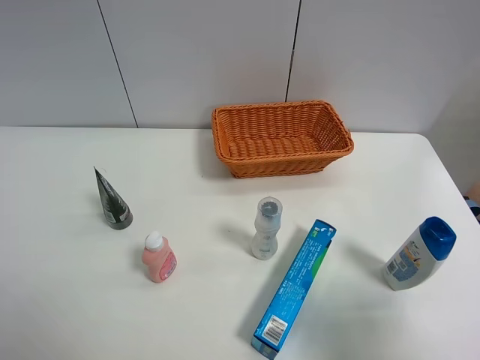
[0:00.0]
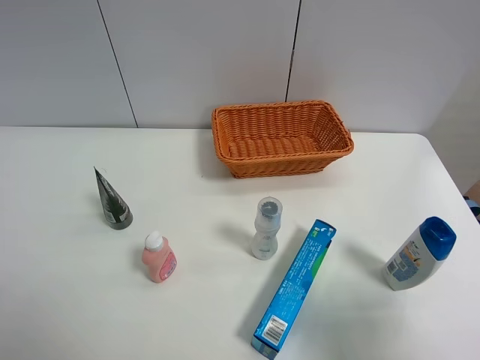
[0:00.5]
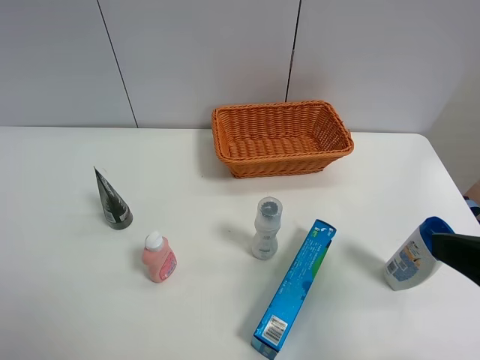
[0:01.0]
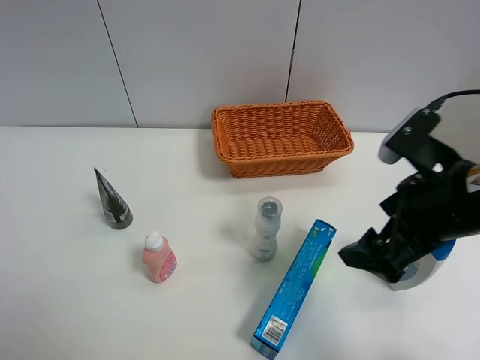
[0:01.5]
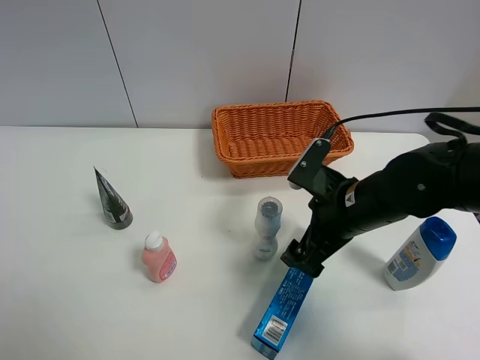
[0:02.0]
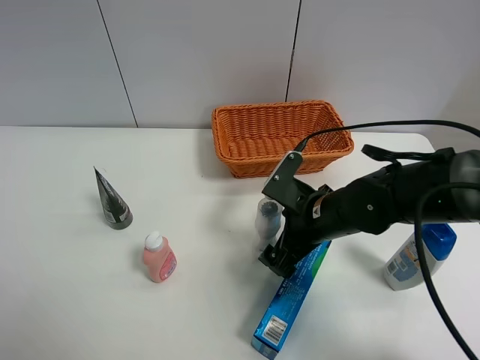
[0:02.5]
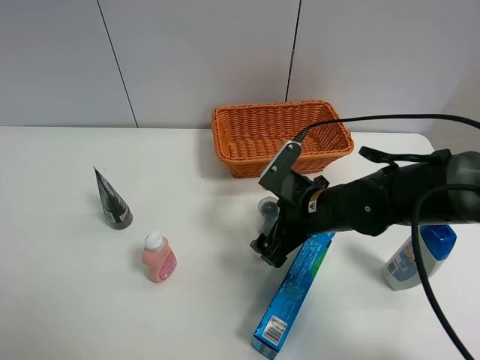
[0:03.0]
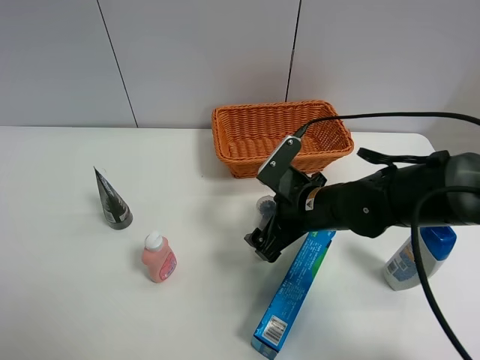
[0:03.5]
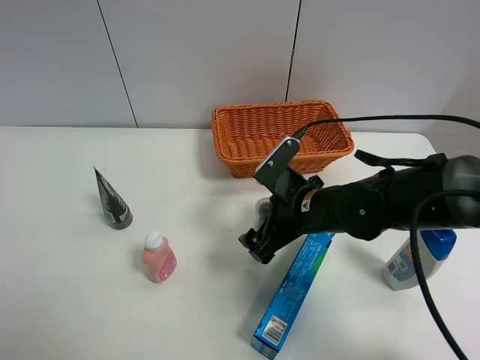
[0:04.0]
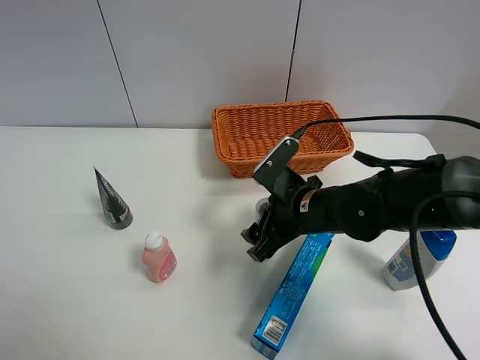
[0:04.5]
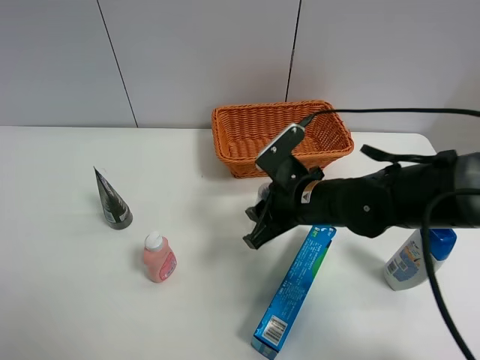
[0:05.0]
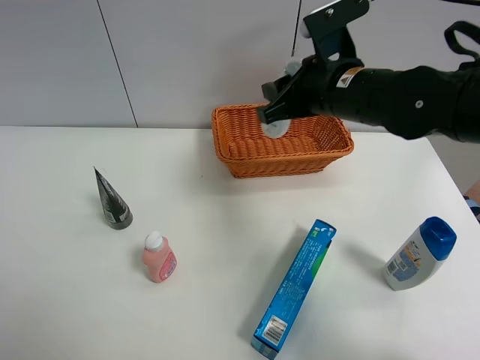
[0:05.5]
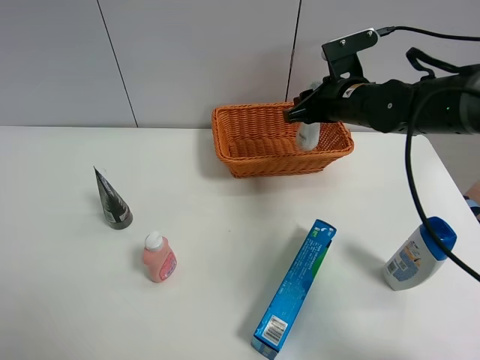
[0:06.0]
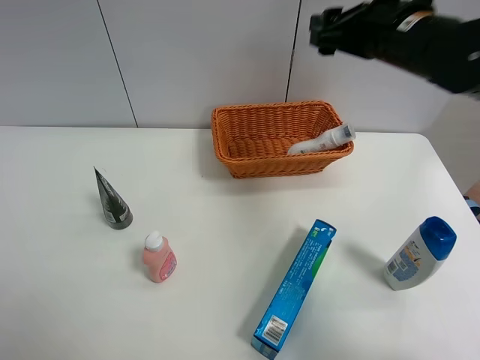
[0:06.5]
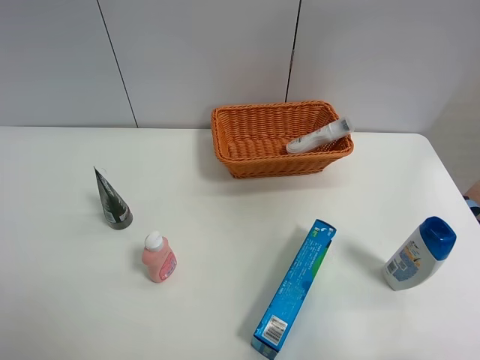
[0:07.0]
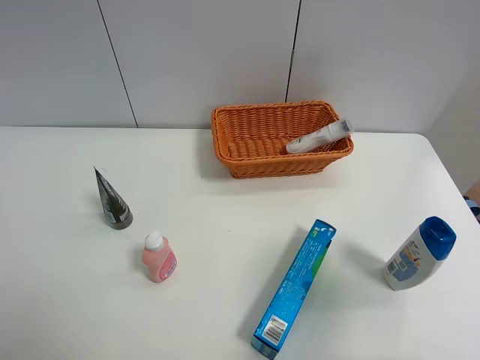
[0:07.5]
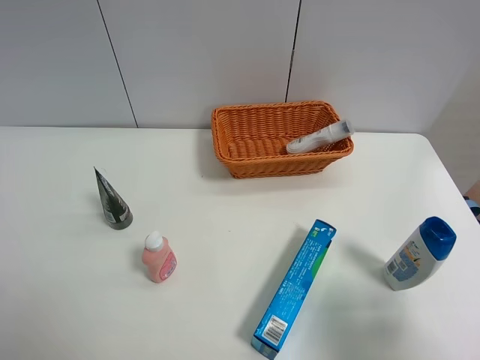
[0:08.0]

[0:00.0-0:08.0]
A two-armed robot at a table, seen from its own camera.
Task of the whole recording: Place the object closest to the toothpaste in the basket.
Step, 0:00.0 to 0:04.5: Grasp the cleaning agent with right gripper.
Step, 0:05.0 to 0:06.0: Place the cleaning agent in the basket with right gripper.
0:00.0 to 0:02.0: The right gripper goes approximately 30 cm forward, to the left and downward.
0:02.0 to 0:04.0: The right gripper ends up roughly 5 cm from where it was.
0:04.0 to 0:06.0: The right gripper shifts approximately 15 cm forward, upward and to the right, and closes.
0:06.0 to 0:08.0: The right gripper goes roughly 35 cm backward, and opens.

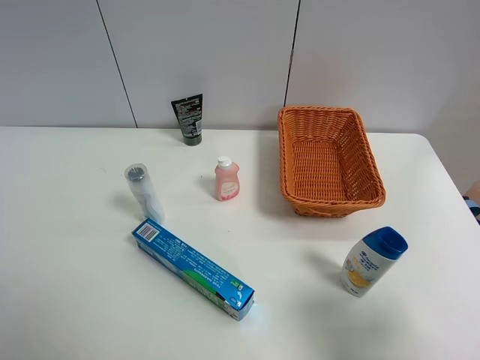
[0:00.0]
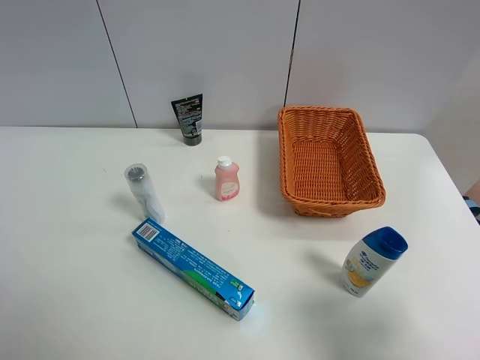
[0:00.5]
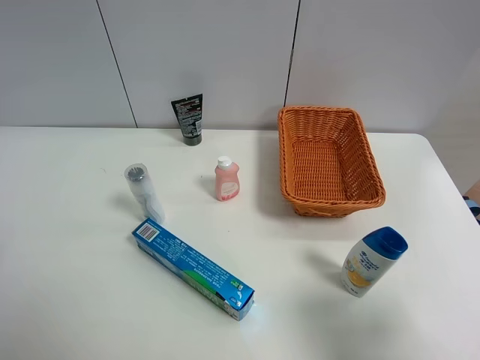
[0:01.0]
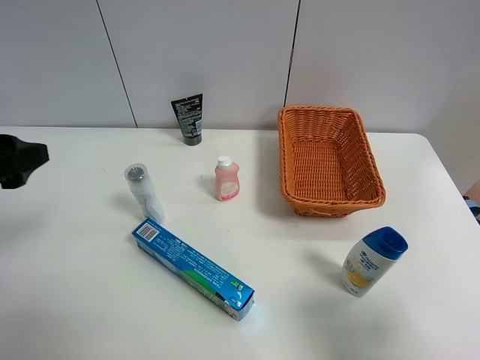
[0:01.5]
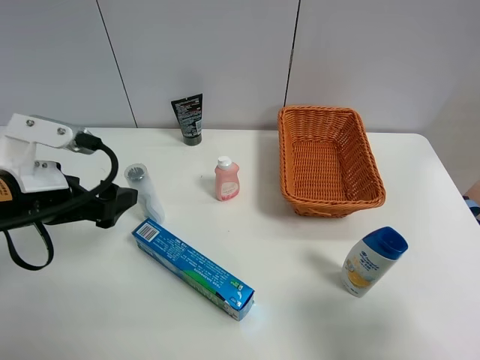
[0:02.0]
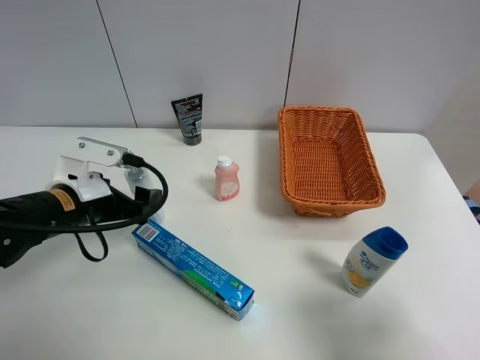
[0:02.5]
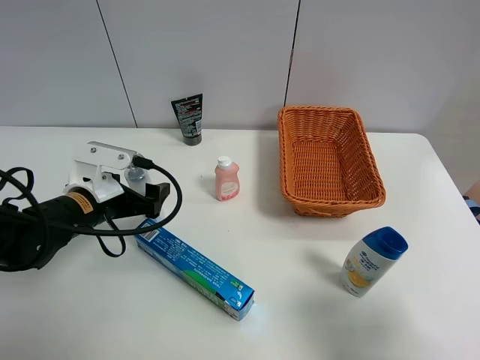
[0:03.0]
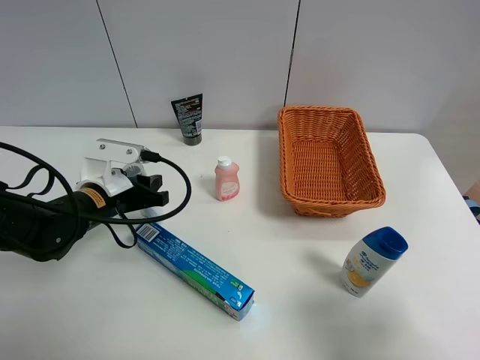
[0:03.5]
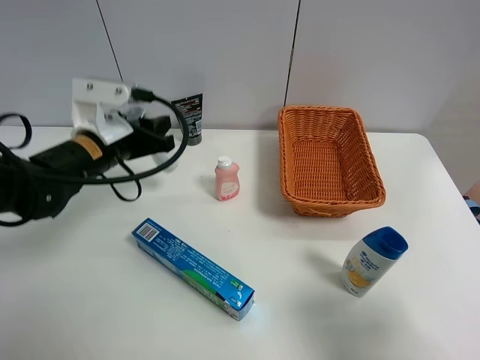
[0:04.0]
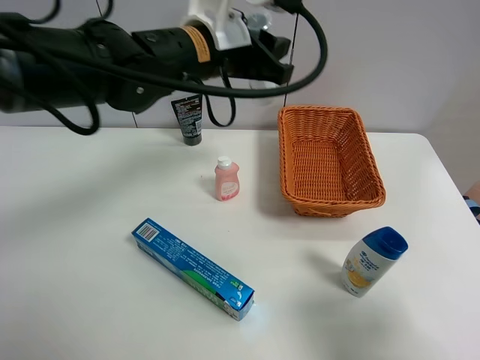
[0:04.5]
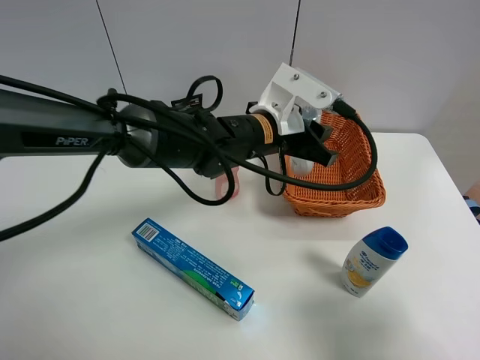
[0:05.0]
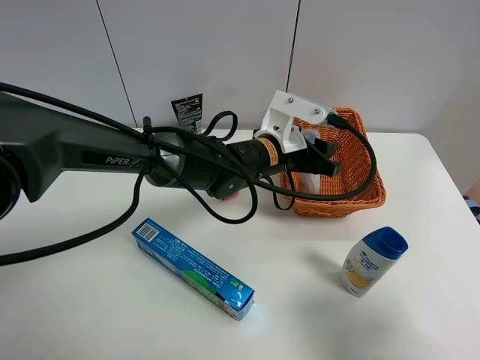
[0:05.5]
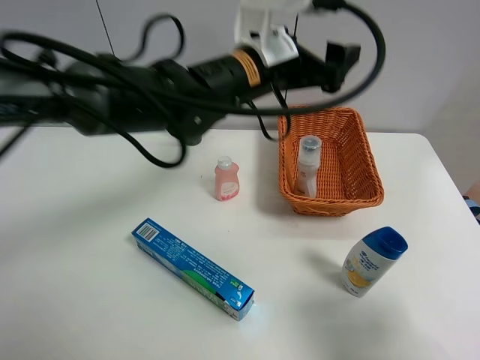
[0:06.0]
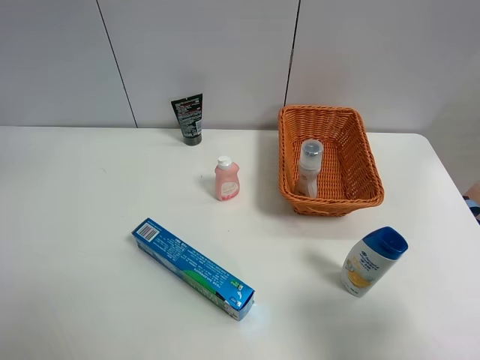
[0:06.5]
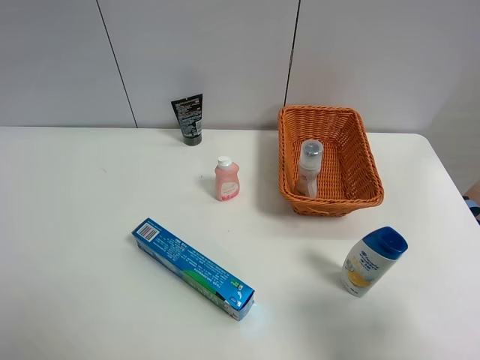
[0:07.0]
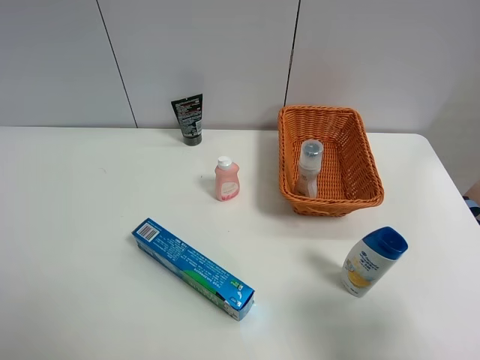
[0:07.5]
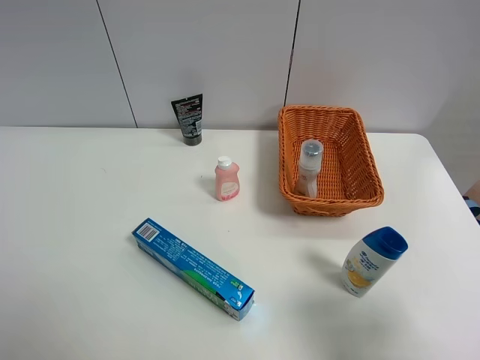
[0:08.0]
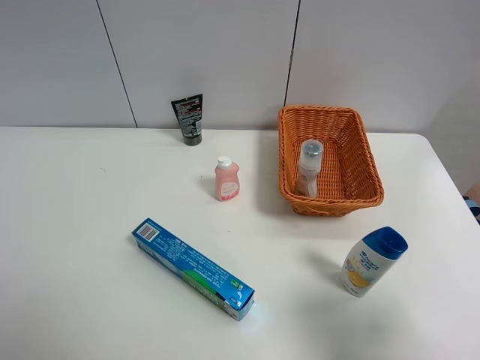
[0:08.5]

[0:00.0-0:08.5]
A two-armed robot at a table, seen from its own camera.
Task of the whole recording: Place the object closest to the toothpaste in the basket.
Step, 0:00.0 to 0:03.5: Grasp the cleaning agent with left gripper.
Step, 0:04.0 to 0:06.0: Place the cleaning agent in the basket with left gripper.
0:00.0 to 0:02.0: The left gripper goes roughly 20 cm forward and to the right.
0:02.0 to 0:04.0: The left gripper shifts some 10 cm forward and to the right, and closes its fingers.
0:04.0 to 0:06.5: The left gripper goes up and down, about 30 cm each way, reversing 2 times, and opens.
